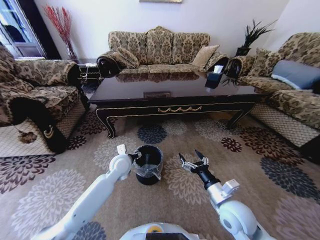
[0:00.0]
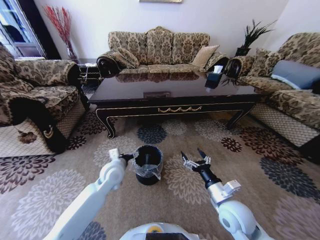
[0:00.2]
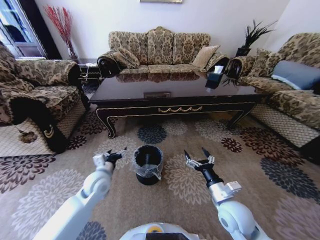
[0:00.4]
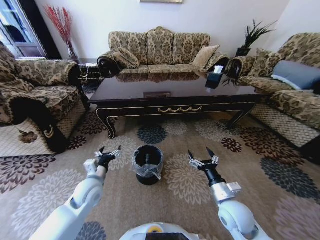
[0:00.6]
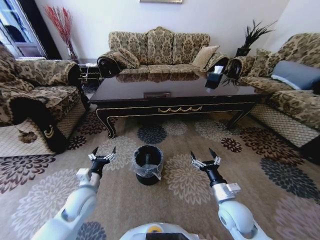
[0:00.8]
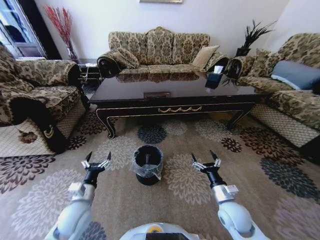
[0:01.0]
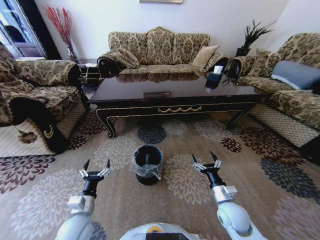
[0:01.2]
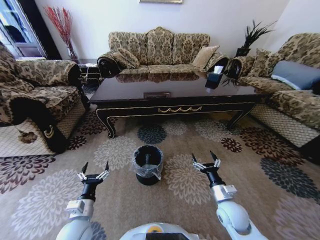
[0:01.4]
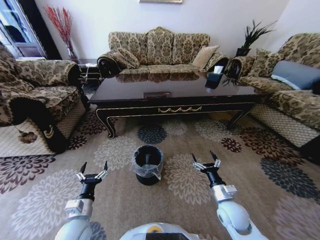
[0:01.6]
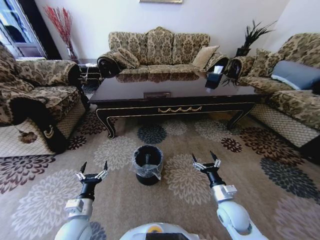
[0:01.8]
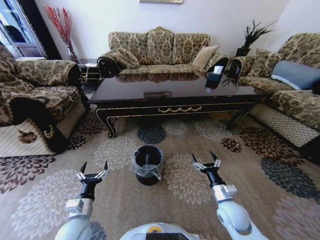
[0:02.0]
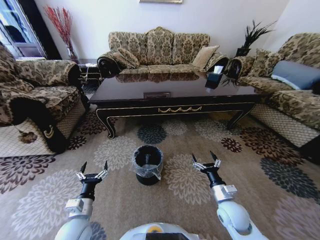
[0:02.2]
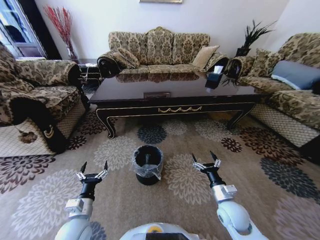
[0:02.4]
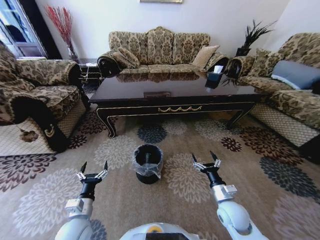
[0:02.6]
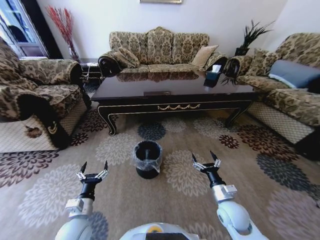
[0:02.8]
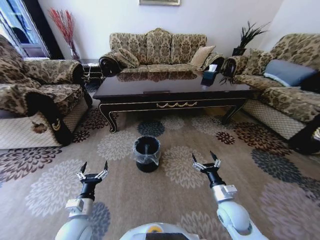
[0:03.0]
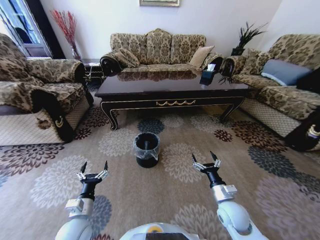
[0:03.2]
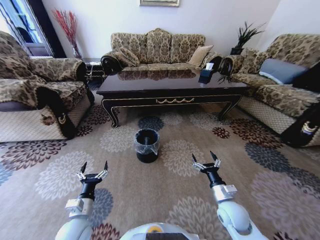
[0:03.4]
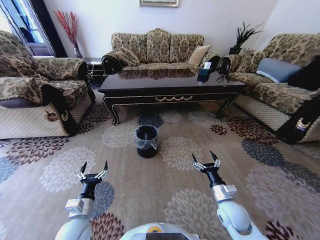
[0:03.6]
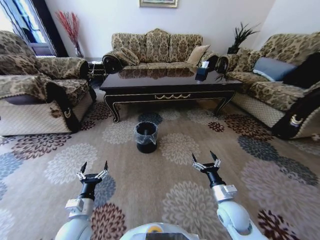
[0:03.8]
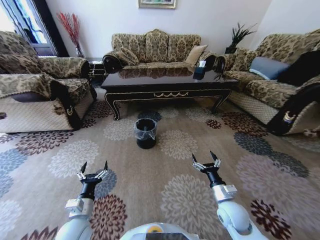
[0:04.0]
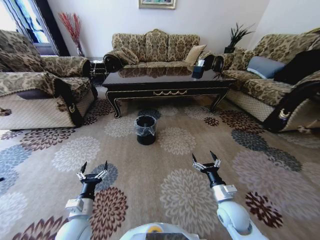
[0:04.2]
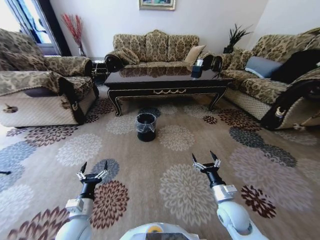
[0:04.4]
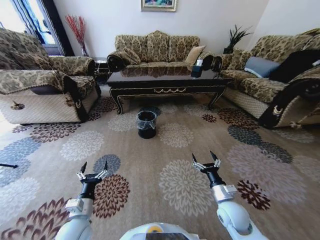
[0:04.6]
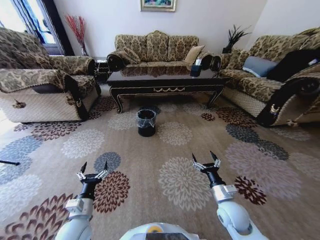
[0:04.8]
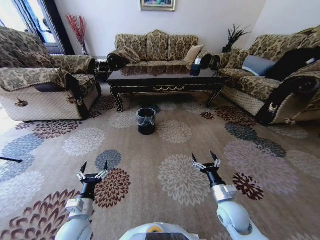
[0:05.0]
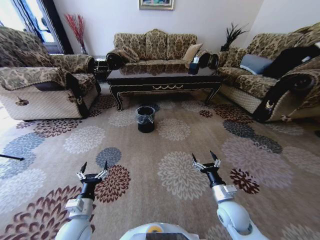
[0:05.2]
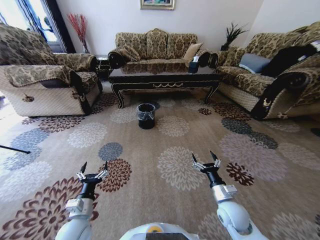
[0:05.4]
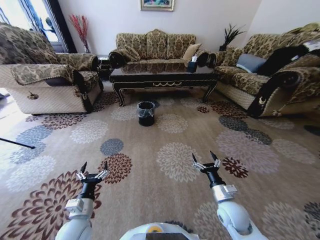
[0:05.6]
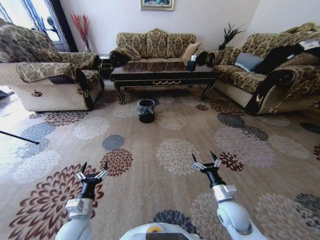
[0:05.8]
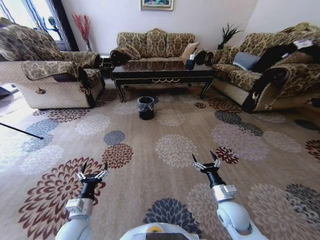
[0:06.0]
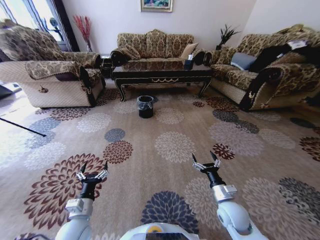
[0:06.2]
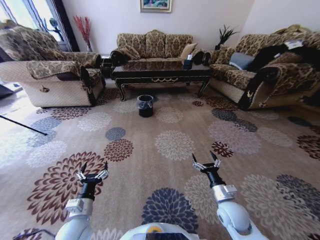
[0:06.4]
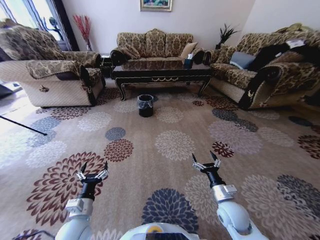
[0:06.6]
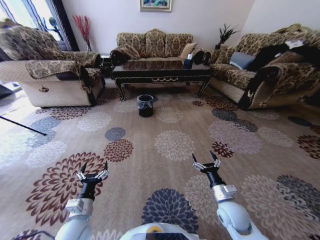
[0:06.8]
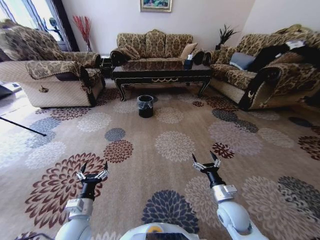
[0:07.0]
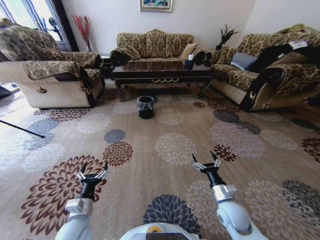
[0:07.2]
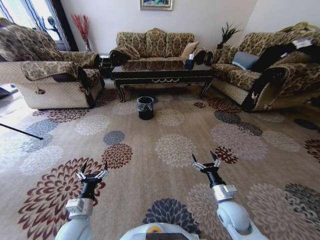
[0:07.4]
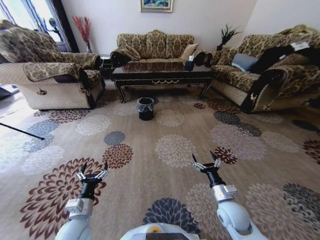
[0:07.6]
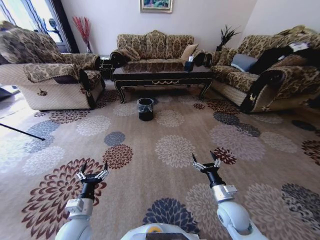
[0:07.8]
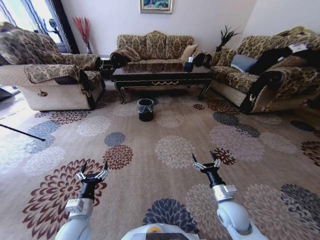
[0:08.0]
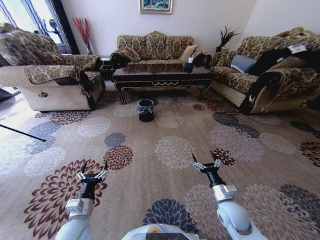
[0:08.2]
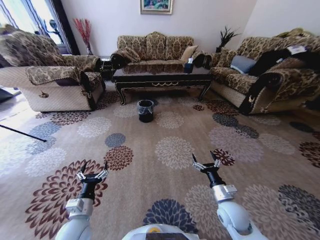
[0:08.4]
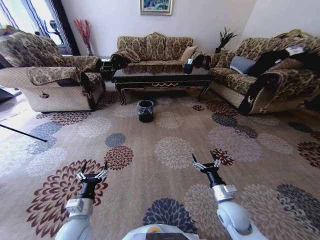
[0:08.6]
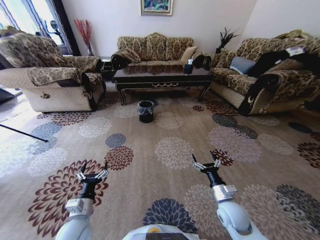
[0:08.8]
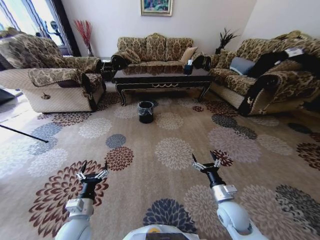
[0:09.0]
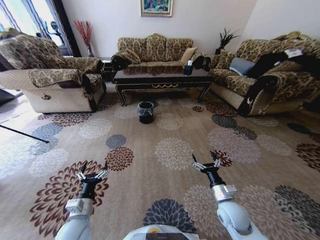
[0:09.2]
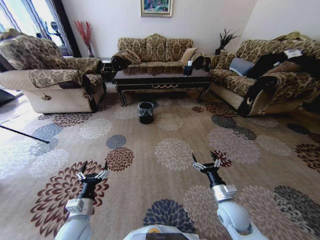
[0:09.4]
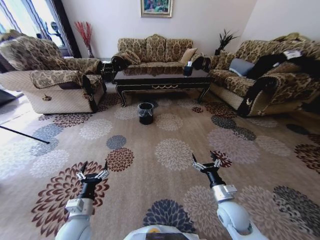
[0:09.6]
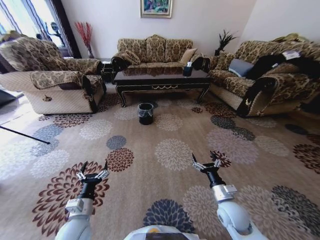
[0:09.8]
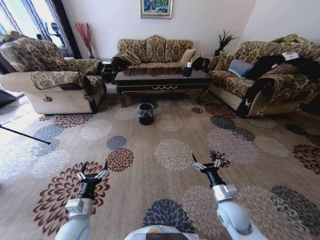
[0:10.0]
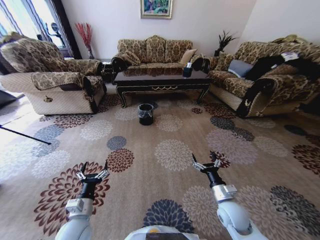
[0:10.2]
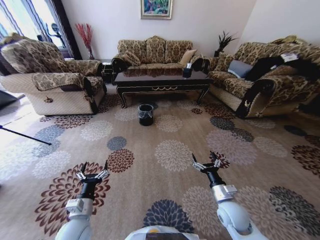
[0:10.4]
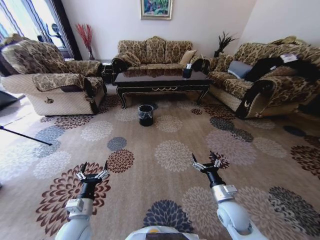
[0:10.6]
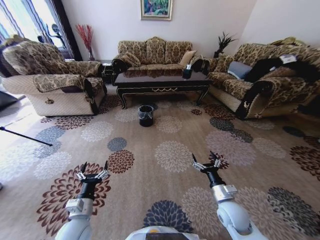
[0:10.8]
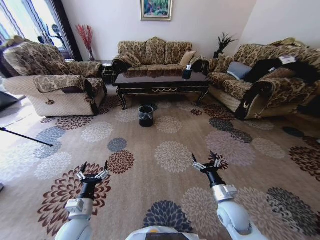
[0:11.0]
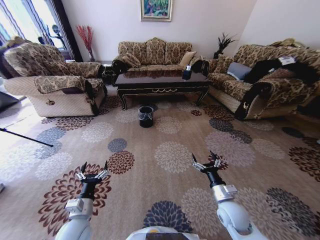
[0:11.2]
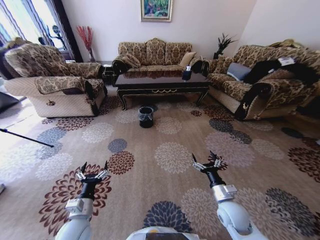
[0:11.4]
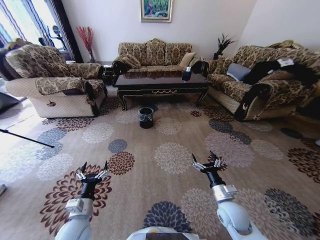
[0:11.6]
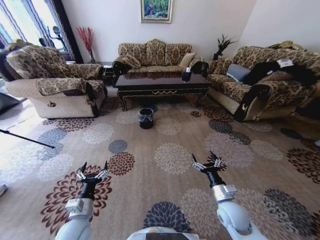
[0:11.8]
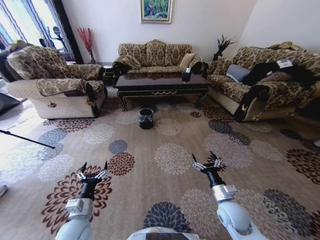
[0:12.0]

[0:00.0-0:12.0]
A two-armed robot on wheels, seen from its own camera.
Task of the whole recording: Move to the front of the table and pick up the trash from the floor, then place it into the trash bin.
0:00.0 to 0:01.6: The right gripper is displaced downward by roughly 5 cm; the left gripper moves backward and to the left, approximately 25 cm.
0:06.0 to 0:07.6: Neither gripper changes place.

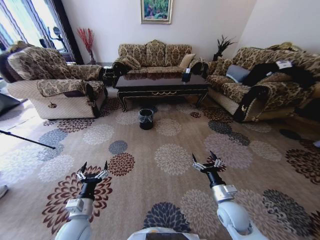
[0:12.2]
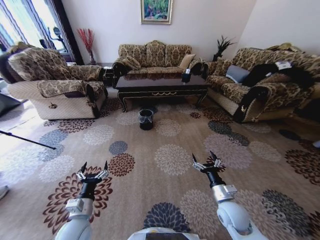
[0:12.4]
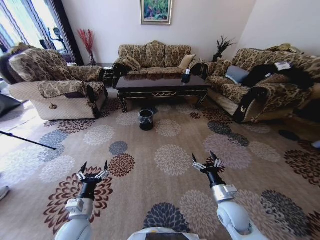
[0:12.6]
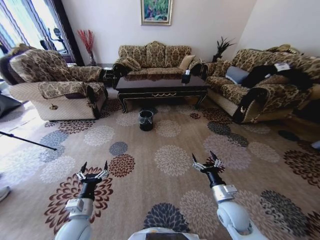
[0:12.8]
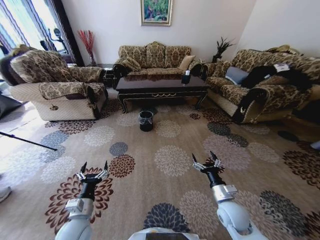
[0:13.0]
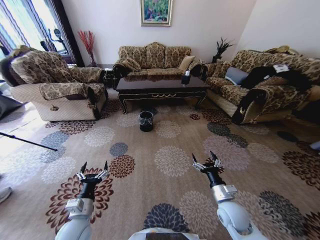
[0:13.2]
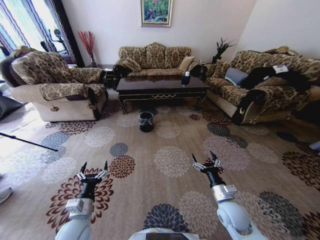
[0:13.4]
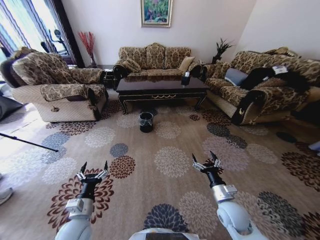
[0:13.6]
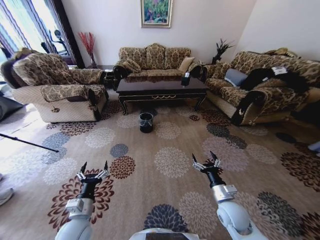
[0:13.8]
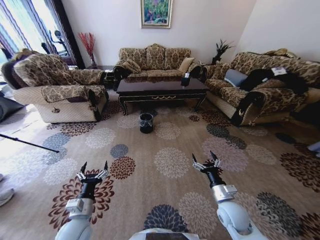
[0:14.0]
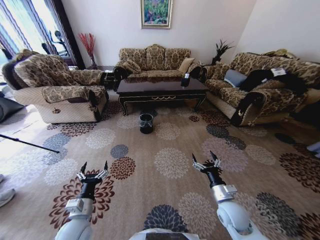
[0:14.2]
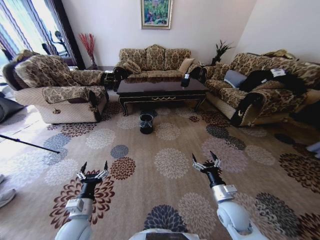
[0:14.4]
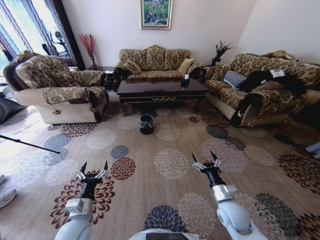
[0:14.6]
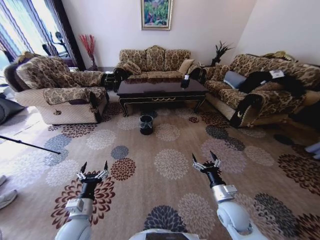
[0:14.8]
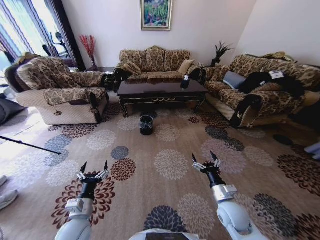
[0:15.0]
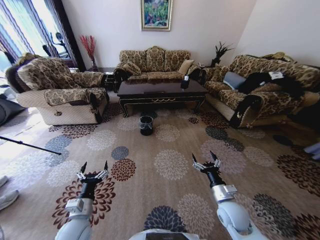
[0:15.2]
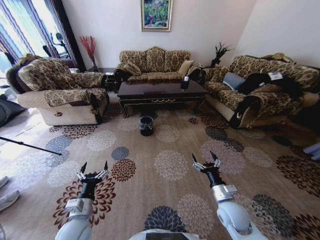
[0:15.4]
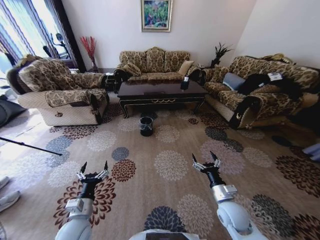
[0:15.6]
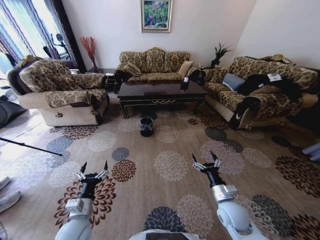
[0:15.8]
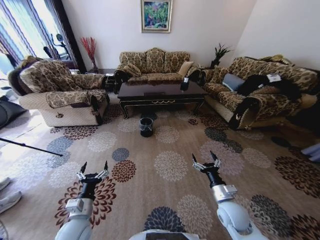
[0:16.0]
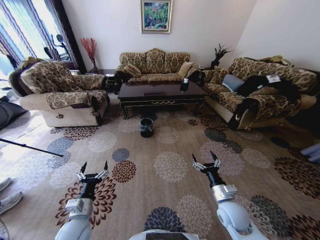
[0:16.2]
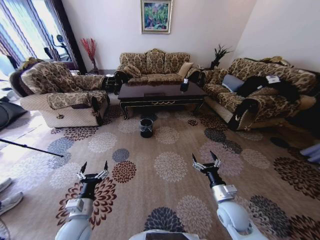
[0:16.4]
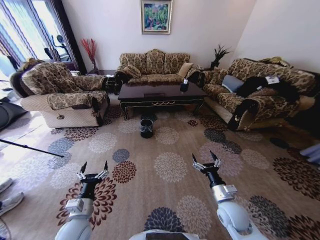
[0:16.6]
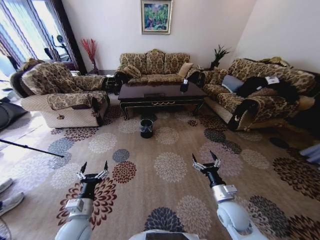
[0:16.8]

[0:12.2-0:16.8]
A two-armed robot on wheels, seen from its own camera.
Task of the whole recording: Move to the front of the table and pick up the trash from the floor, then place it into the trash bin.
0:13.8 to 0:15.2: Both grippers stay put.
